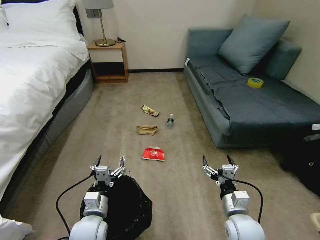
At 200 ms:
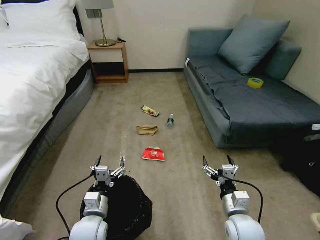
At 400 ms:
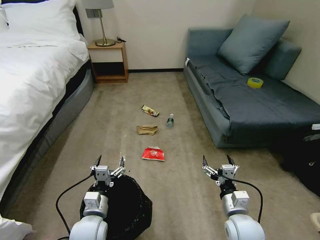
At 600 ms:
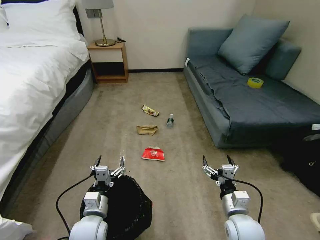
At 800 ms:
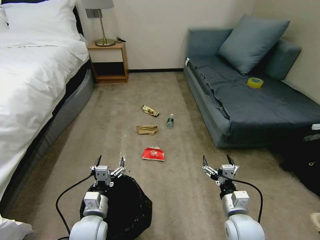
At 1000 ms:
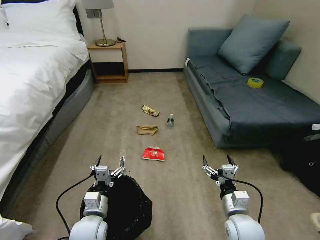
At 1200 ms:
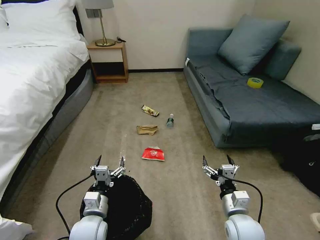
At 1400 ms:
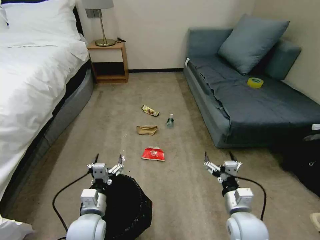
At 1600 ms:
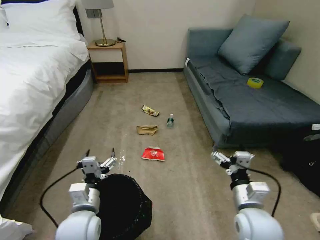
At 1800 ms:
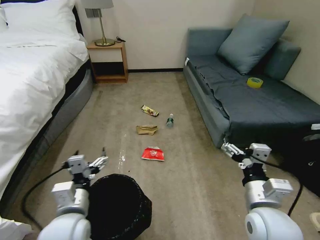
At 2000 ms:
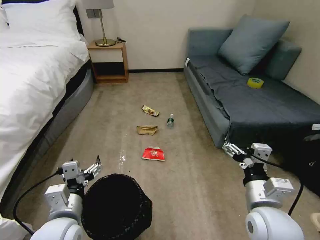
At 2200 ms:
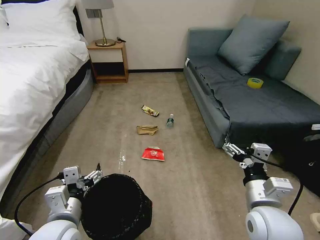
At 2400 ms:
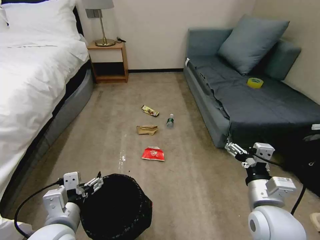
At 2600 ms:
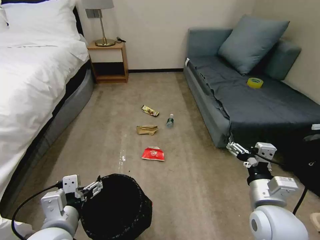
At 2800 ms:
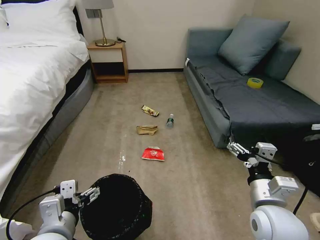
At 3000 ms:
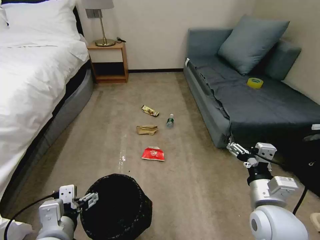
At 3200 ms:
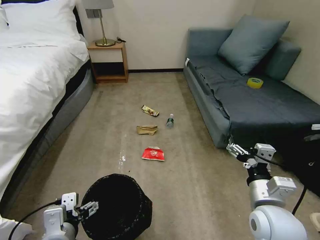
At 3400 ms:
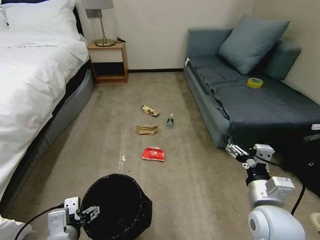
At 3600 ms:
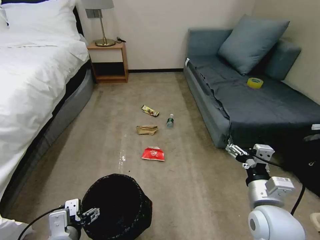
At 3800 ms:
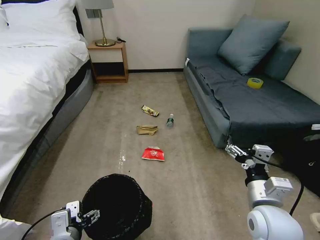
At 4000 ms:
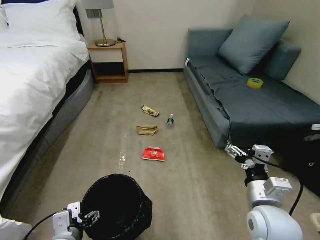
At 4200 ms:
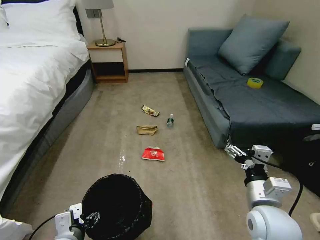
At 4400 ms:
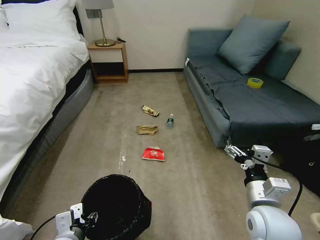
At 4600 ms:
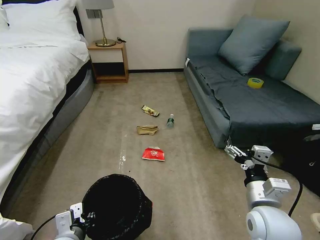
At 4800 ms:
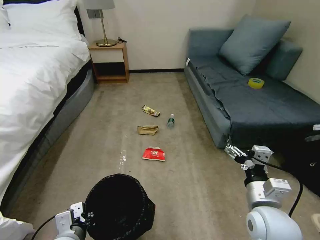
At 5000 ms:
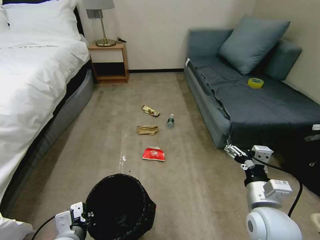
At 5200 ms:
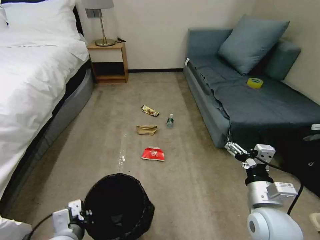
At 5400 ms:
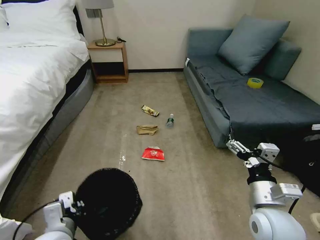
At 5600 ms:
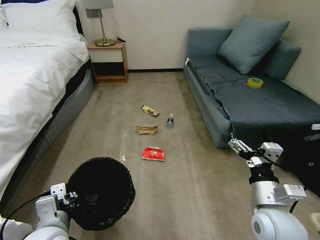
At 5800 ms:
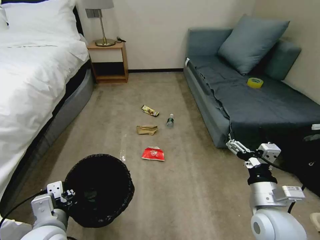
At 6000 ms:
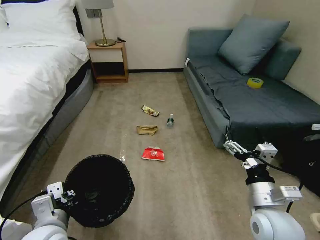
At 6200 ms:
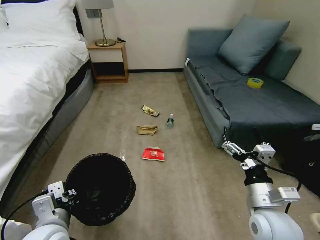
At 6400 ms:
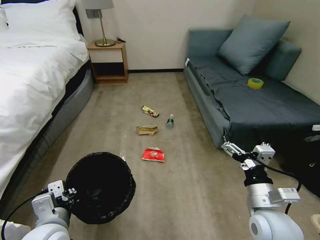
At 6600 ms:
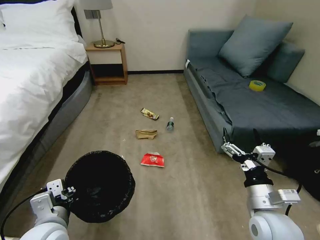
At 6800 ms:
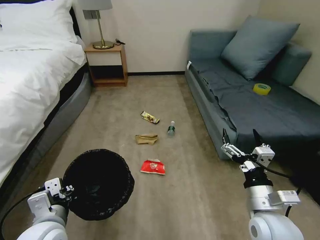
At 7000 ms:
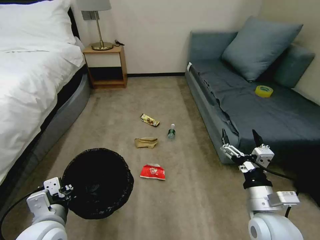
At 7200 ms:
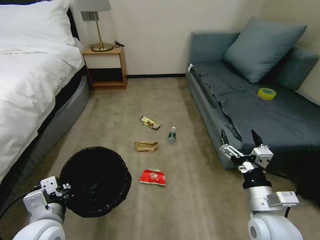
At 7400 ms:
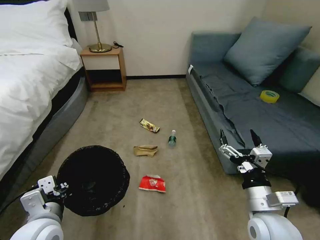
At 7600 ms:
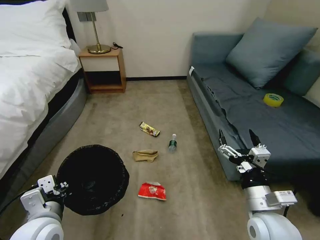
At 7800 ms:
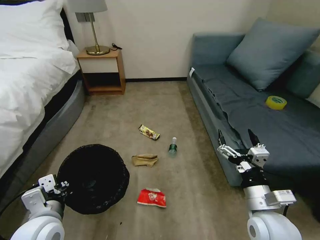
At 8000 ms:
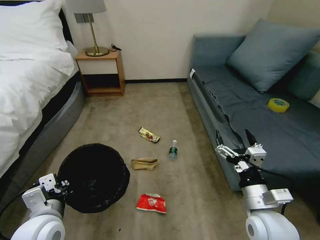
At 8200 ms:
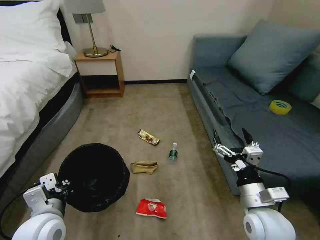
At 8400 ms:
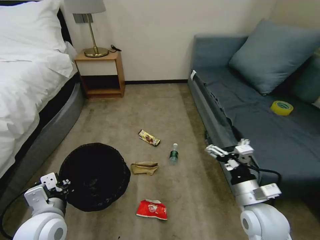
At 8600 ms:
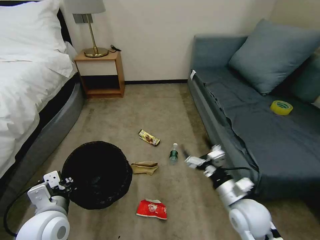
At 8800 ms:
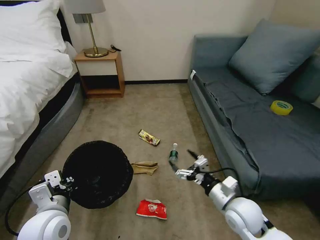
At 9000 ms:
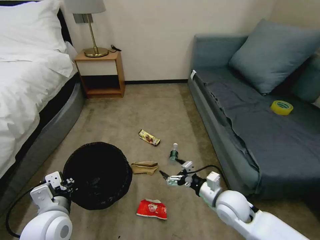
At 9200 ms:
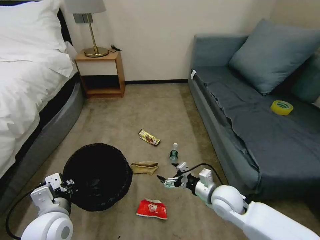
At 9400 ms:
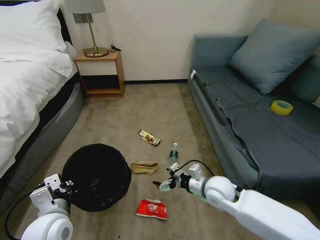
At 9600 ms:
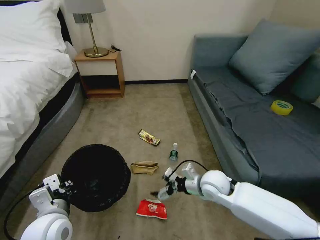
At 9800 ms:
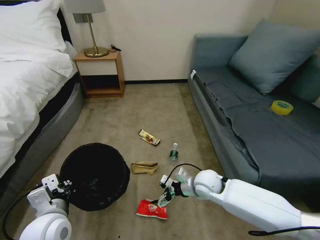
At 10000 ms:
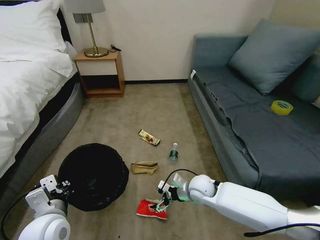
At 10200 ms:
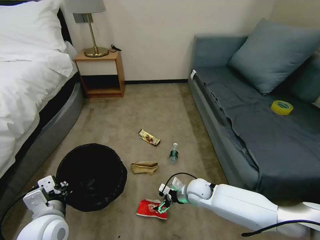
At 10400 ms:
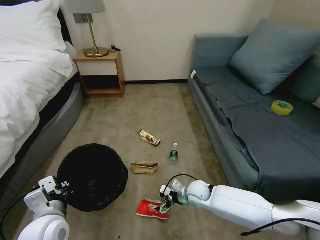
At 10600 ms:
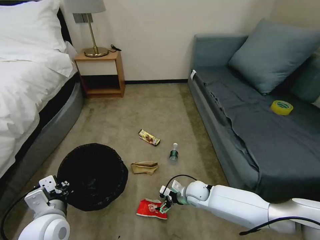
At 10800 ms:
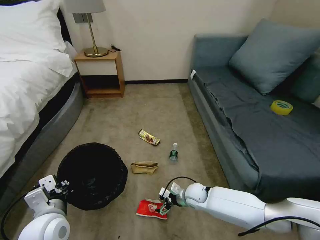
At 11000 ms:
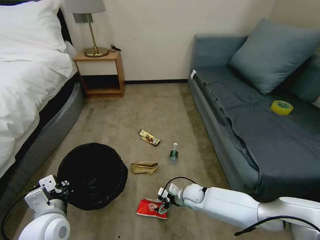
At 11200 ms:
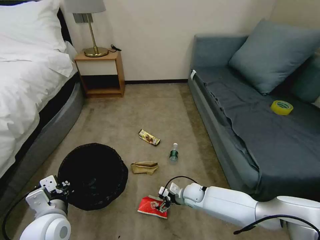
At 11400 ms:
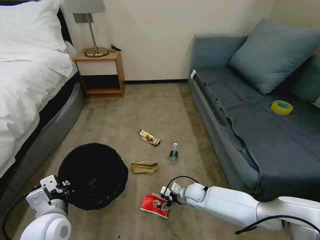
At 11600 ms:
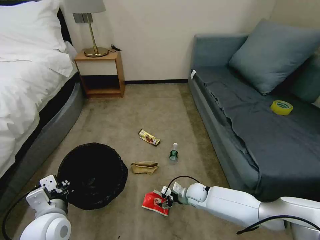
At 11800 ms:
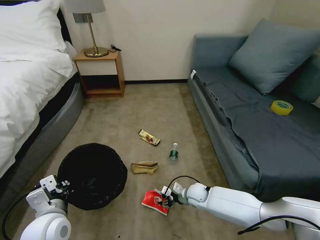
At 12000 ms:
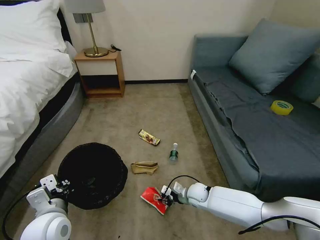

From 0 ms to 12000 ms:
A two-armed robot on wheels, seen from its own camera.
Task of the whole recording: Pick up the trash bin, then pick up the garbage on the floor and place it into the trash bin.
From 1600 ms to 3000 ms: The left gripper travels backward and upward by about 10 cm; the right gripper shifts approximately 5 cm upward.
From 3000 ms to 4400 ms: The left gripper is displaced downward by about 10 cm, and closes its fingers.
From 4400 ms to 6000 ms: The left gripper is displaced upward by approximately 5 cm, and closes up.
From 7600 ms to 9000 ms: The right gripper is displaced downward and forward by some 10 cm.
From 9000 ms to 10400 ms: The right gripper shifts approximately 15 cm downward, forward and to the left.
From 10400 ms to 12000 ms: The right gripper shifts roughly 5 cm downward, and closes its fingers.

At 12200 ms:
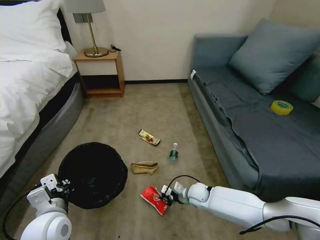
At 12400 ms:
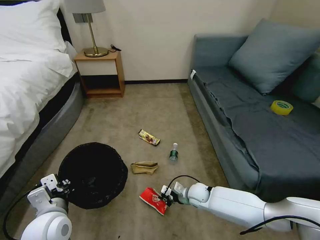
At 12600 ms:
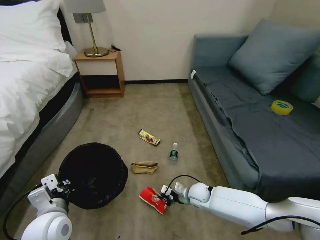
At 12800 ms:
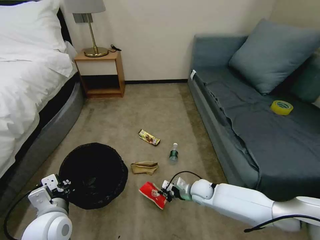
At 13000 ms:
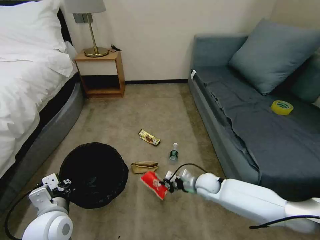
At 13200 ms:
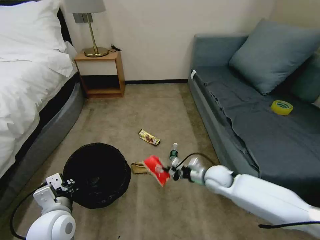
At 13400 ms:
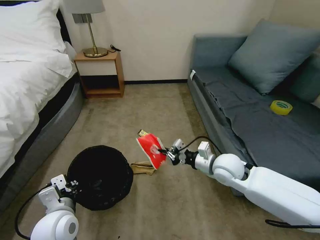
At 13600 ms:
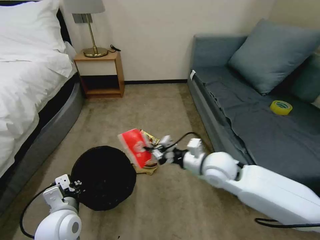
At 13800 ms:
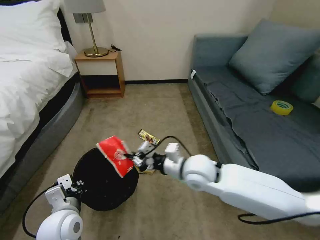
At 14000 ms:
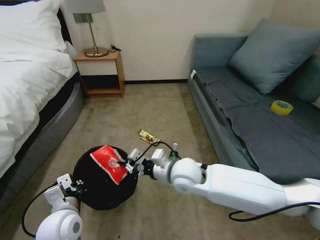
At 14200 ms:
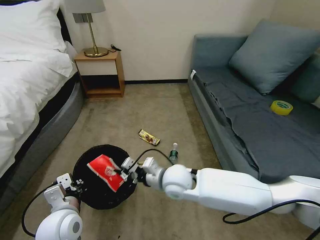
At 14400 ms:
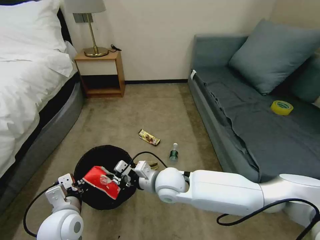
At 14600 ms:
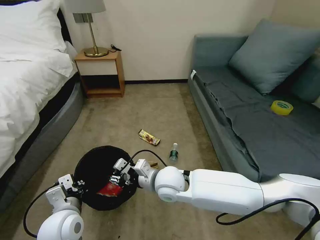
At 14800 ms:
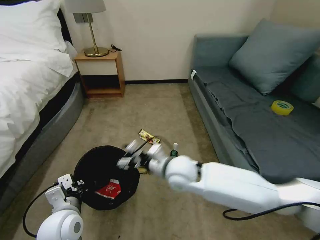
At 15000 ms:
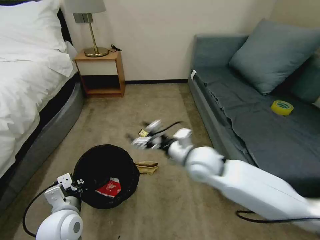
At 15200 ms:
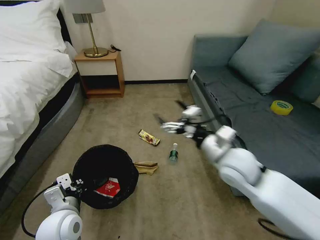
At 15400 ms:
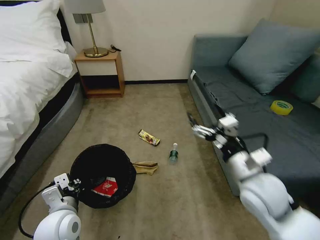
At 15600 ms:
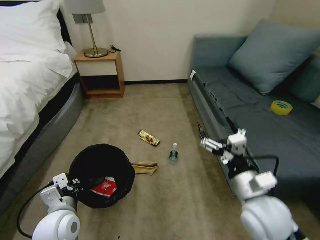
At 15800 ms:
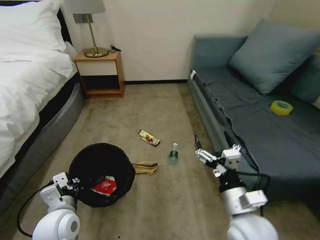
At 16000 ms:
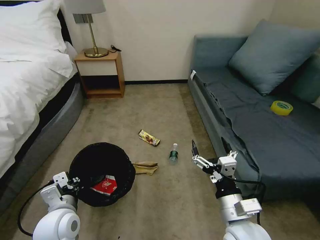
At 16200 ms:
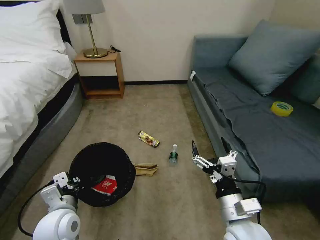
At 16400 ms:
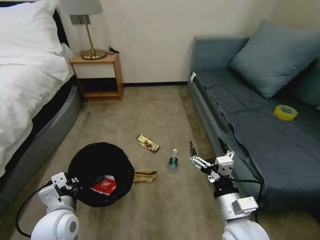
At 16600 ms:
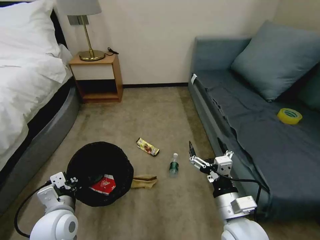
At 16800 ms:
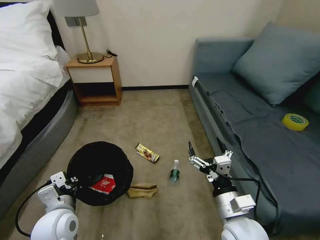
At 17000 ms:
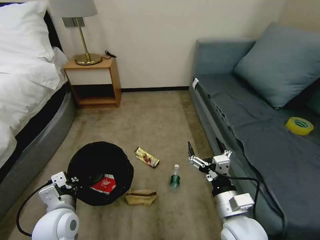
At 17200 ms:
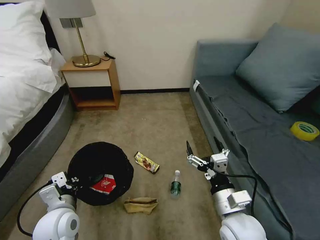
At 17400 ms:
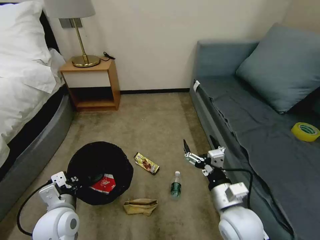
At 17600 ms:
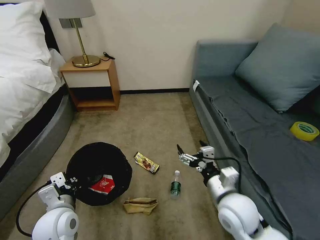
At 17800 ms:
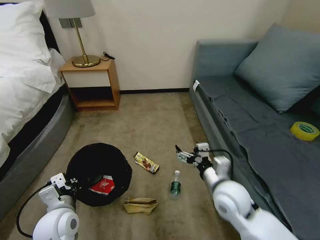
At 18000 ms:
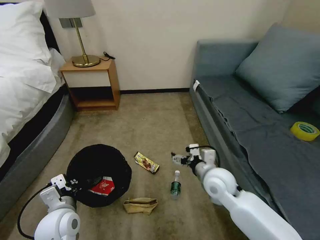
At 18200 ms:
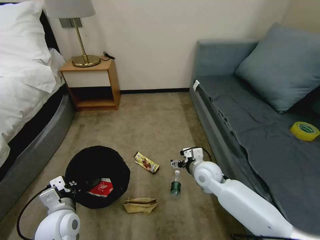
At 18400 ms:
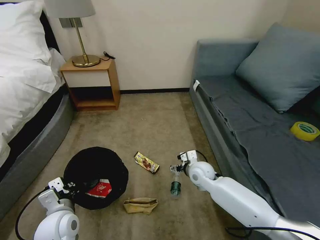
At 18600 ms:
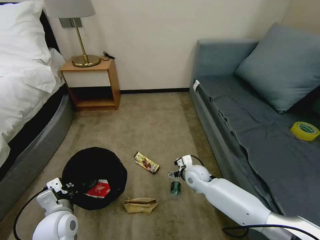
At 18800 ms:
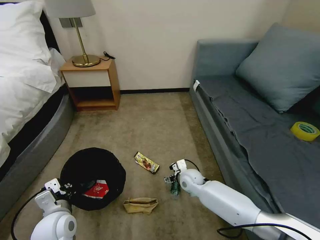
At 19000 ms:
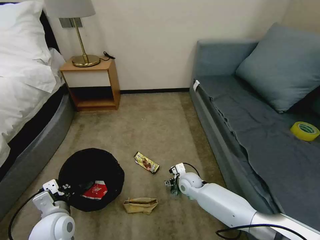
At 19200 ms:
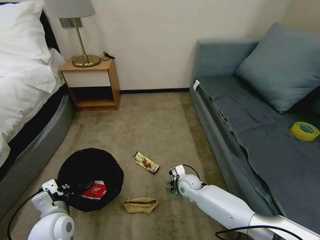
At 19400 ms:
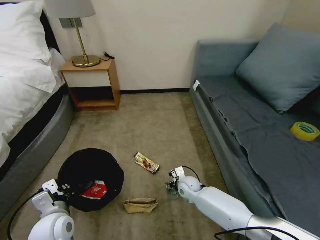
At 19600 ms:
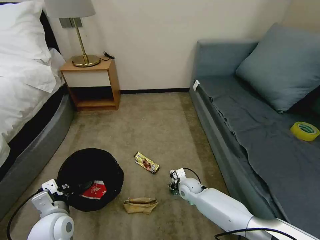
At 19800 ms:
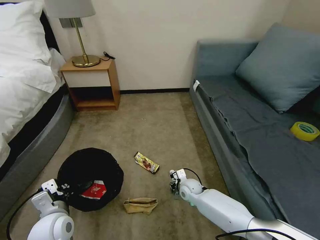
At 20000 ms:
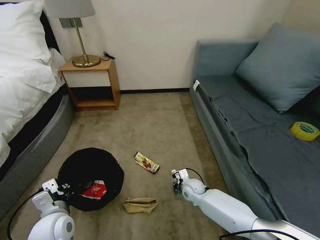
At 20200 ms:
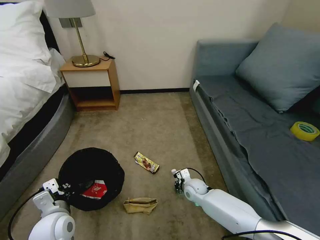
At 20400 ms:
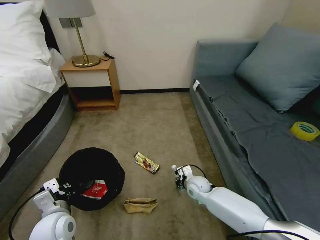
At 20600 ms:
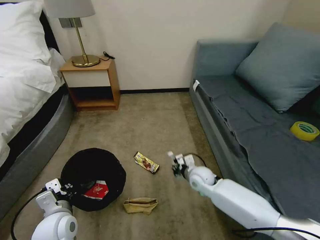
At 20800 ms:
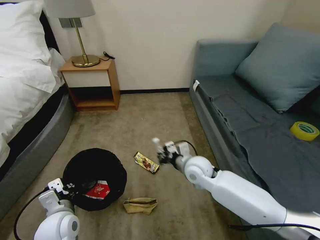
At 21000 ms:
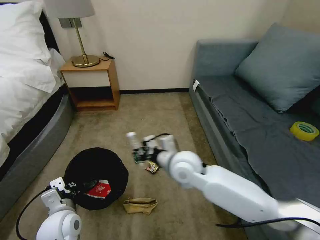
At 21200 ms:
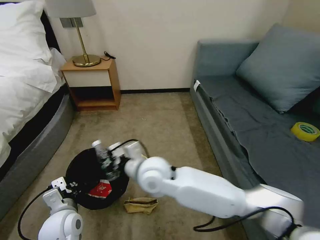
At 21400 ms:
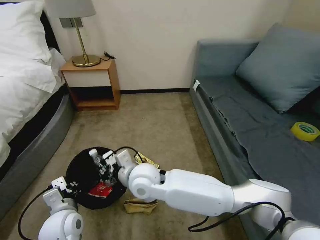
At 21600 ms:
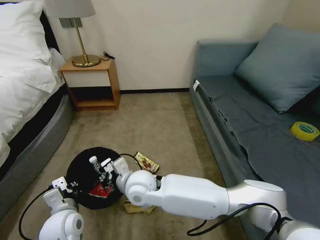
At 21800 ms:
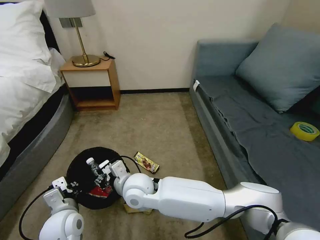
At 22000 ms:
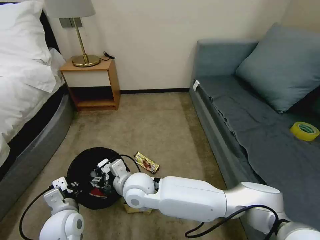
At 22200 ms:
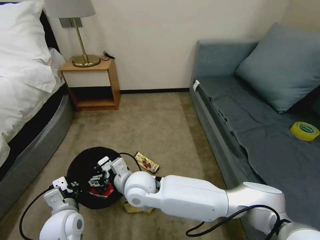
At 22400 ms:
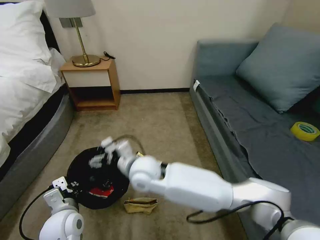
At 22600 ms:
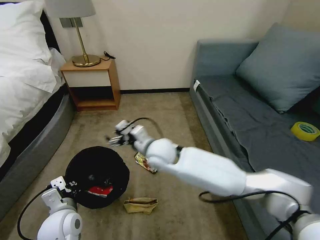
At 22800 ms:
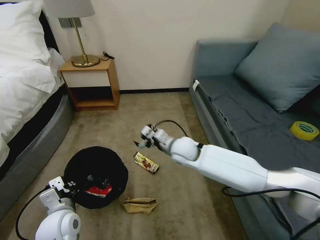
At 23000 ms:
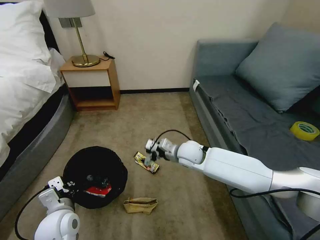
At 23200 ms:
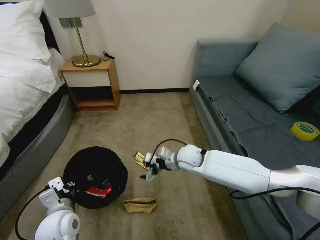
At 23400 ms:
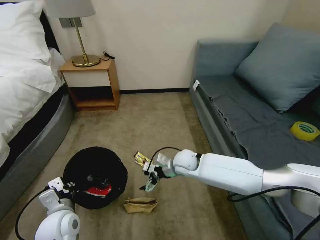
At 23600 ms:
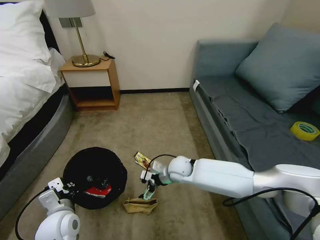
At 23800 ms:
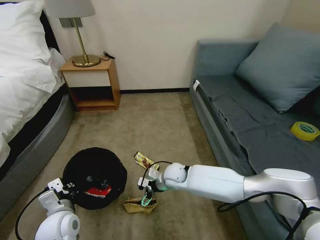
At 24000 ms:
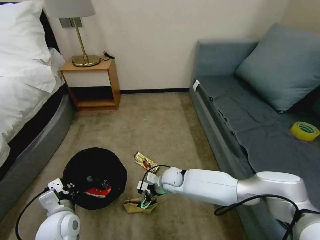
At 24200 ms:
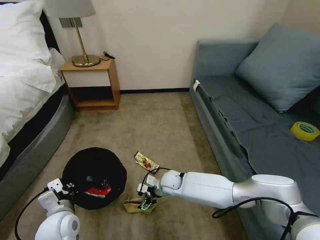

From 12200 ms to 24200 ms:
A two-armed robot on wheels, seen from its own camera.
Task of the whole recording: Pick up the trash bin, then pick up the garbage on the floor and place it into the trash bin.
From 12200 ms to 13800 ms: The right gripper shifts some 25 cm upward.
From 13800 ms to 15200 ms: The right gripper moves to the right and upward, roughly 10 cm, and opens.
From 15200 ms to 16600 ms: The right gripper moves backward and downward, about 15 cm.
From 16600 ms to 18200 ms: The right gripper heads forward, covering roughly 20 cm.
From 18200 ms to 19800 ms: The right gripper goes some 15 cm downward, and closes its fingers.
From 19800 ms to 21200 ms: The right gripper is displaced upward and to the left by roughly 30 cm.
From 21200 ms to 22600 ms: The right gripper goes some 5 cm forward, and opens up.
From 22600 ms to 24200 ms: The right gripper shifts roughly 20 cm downward.
